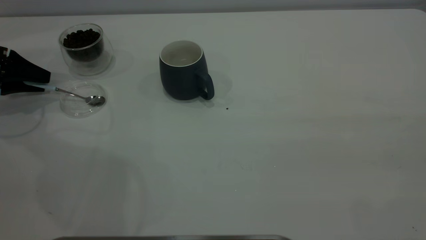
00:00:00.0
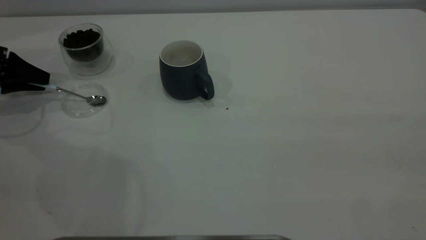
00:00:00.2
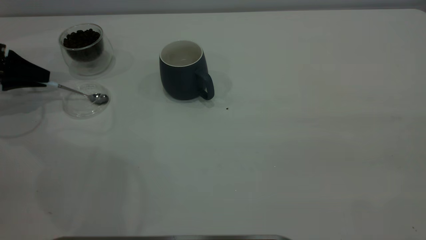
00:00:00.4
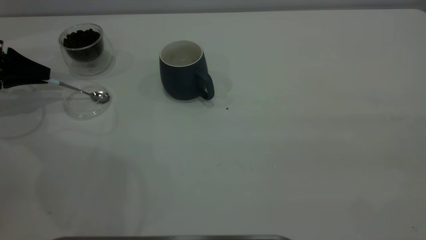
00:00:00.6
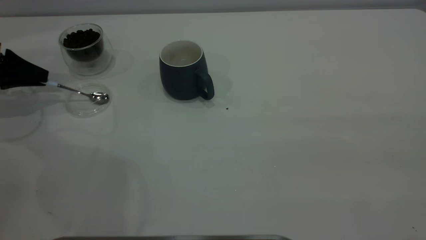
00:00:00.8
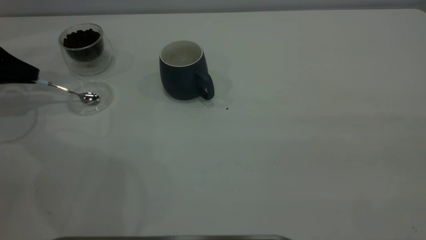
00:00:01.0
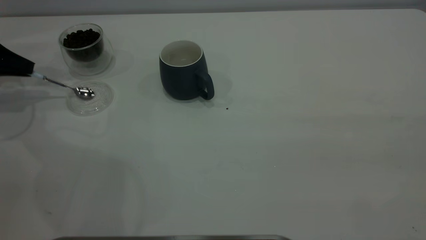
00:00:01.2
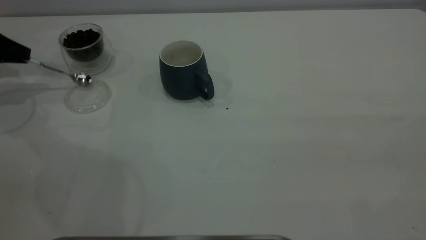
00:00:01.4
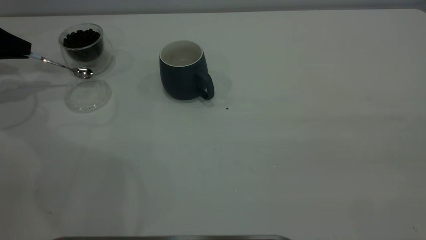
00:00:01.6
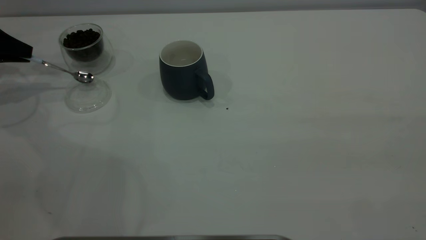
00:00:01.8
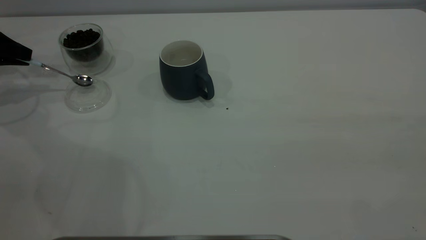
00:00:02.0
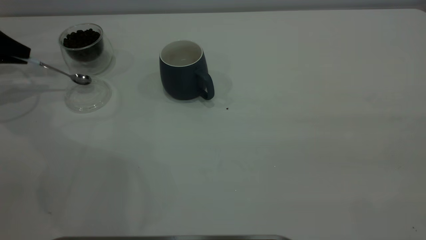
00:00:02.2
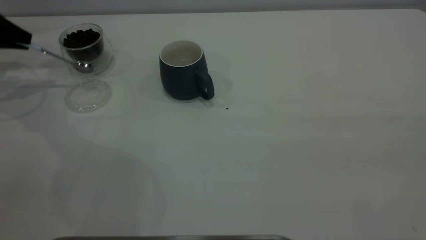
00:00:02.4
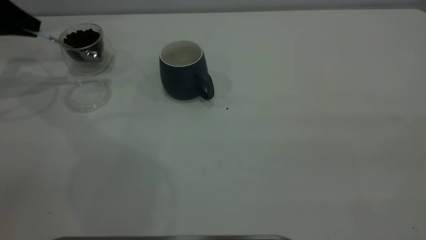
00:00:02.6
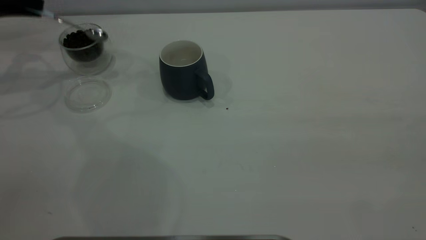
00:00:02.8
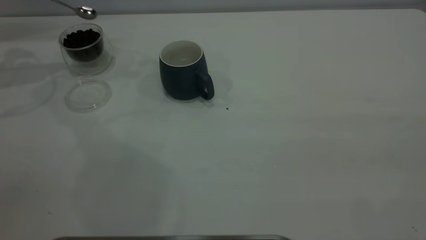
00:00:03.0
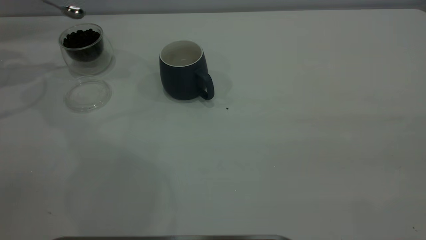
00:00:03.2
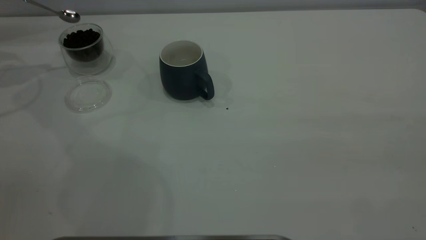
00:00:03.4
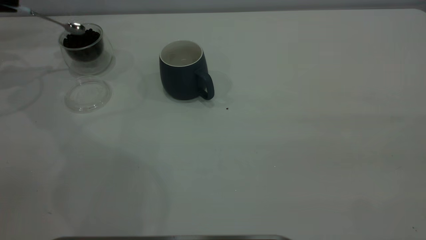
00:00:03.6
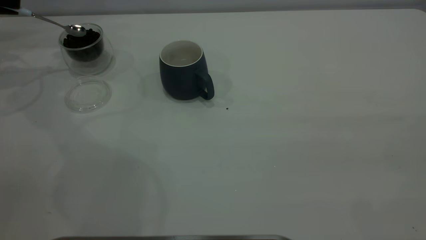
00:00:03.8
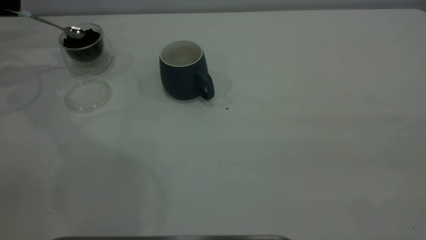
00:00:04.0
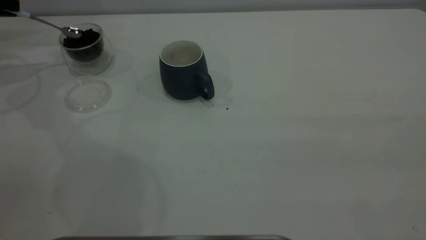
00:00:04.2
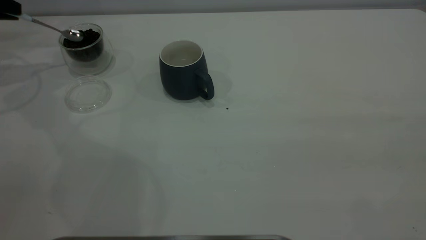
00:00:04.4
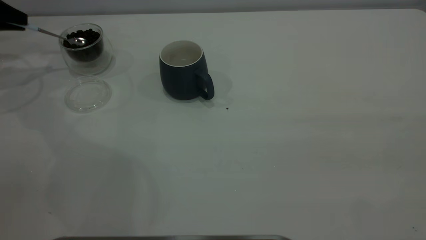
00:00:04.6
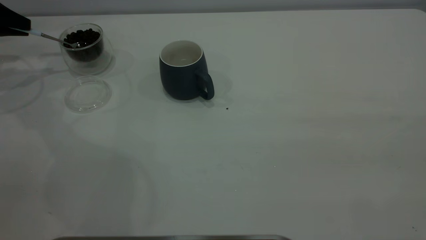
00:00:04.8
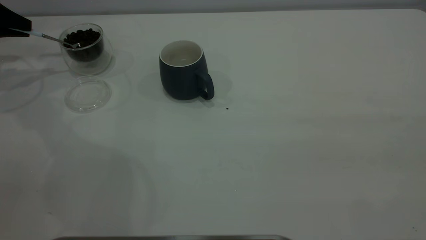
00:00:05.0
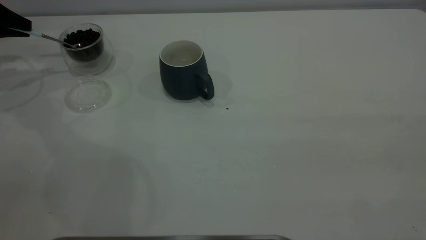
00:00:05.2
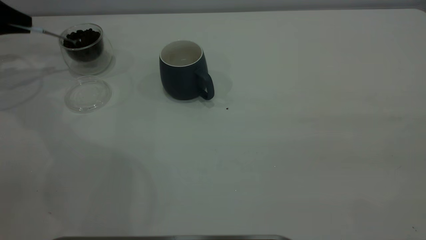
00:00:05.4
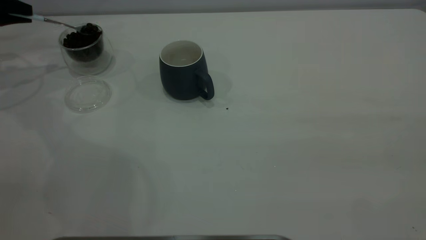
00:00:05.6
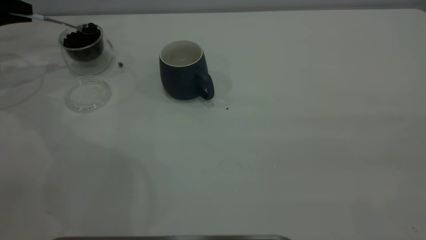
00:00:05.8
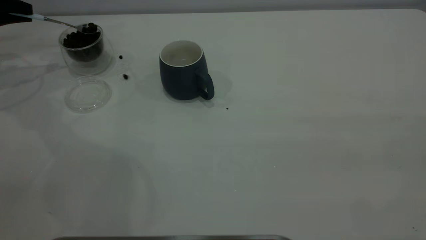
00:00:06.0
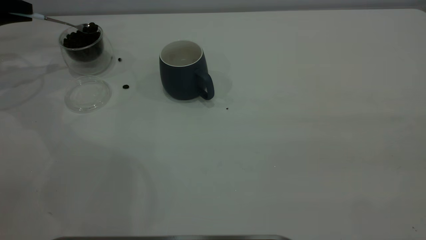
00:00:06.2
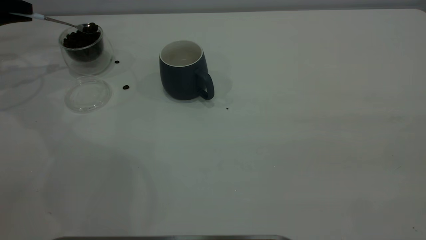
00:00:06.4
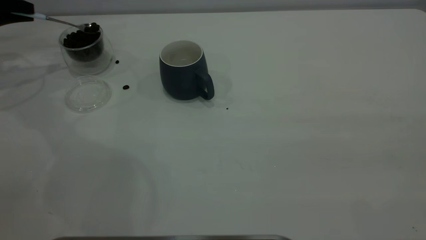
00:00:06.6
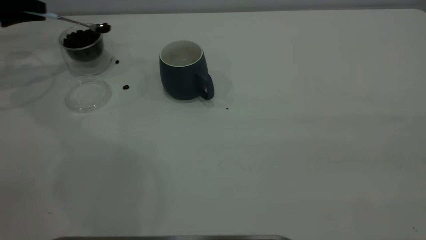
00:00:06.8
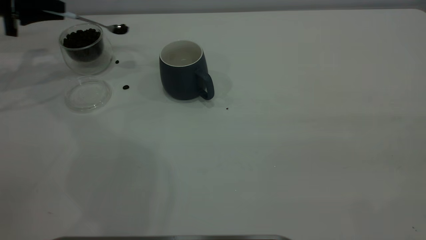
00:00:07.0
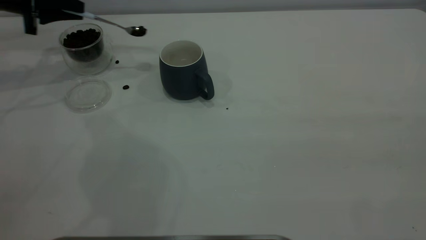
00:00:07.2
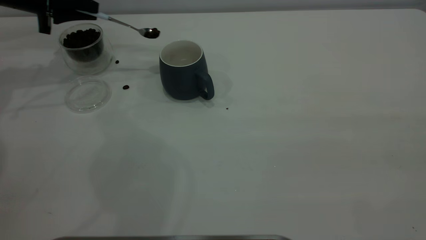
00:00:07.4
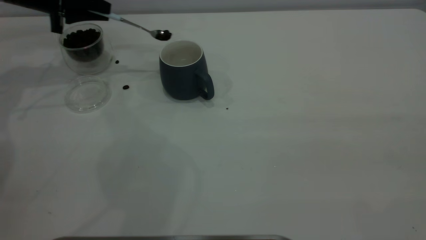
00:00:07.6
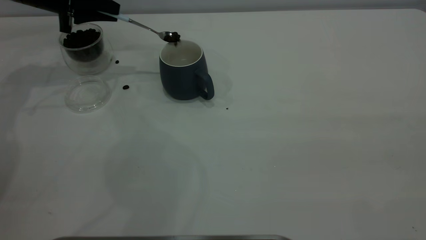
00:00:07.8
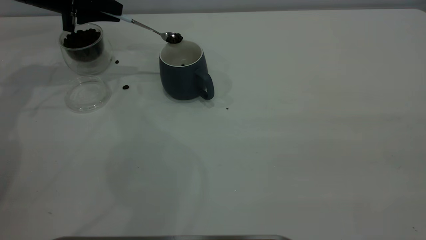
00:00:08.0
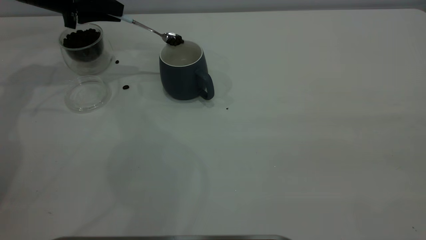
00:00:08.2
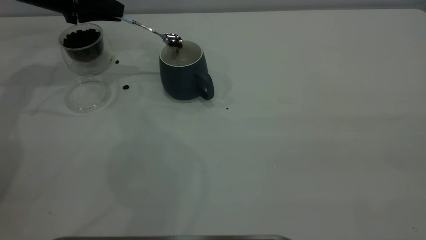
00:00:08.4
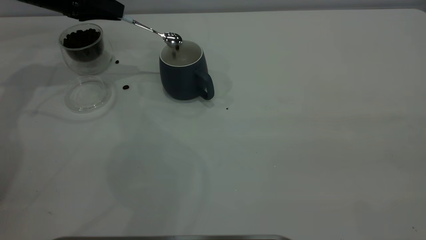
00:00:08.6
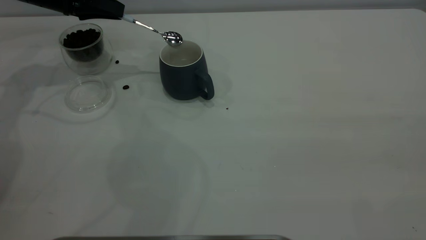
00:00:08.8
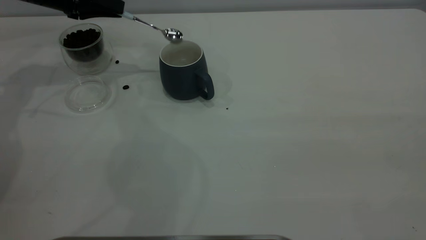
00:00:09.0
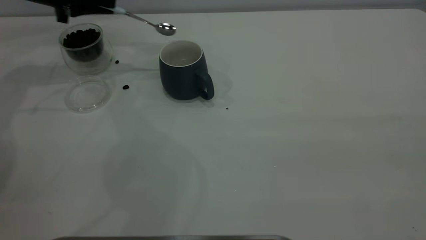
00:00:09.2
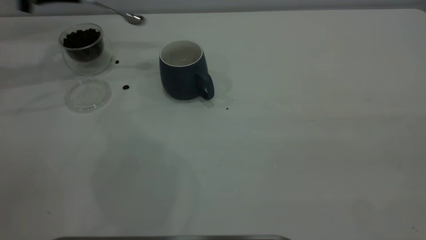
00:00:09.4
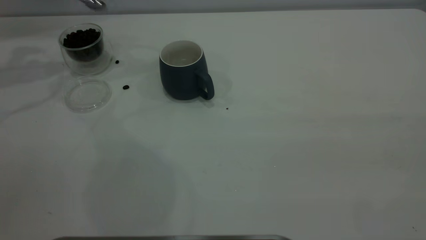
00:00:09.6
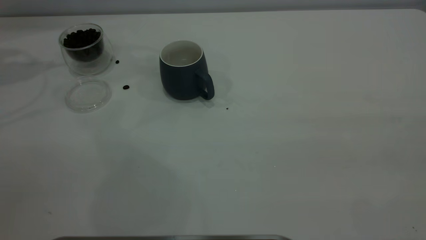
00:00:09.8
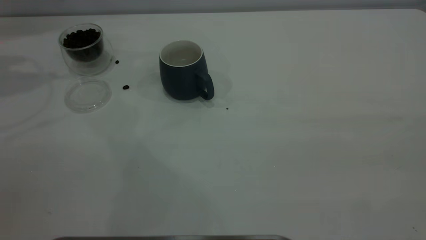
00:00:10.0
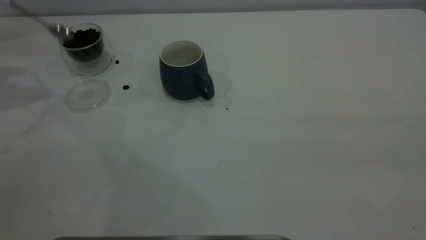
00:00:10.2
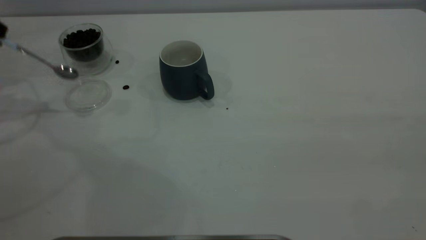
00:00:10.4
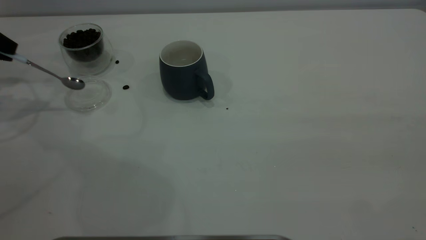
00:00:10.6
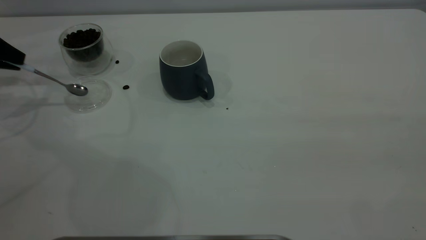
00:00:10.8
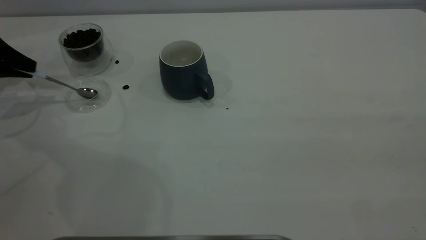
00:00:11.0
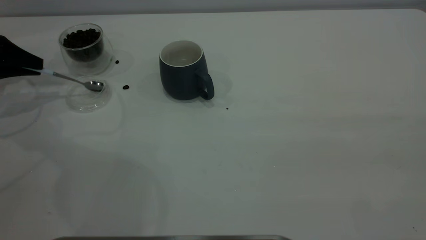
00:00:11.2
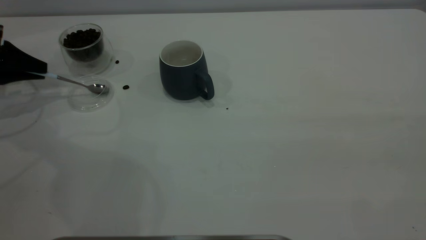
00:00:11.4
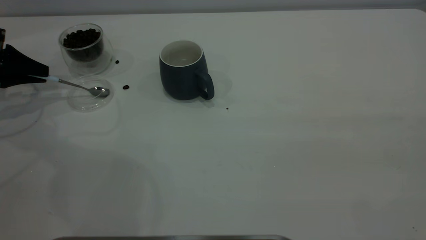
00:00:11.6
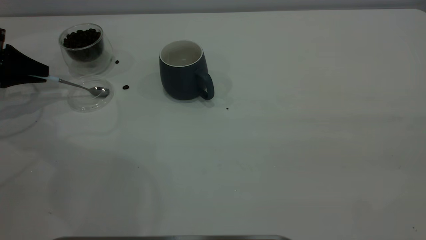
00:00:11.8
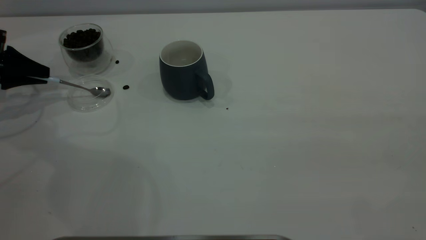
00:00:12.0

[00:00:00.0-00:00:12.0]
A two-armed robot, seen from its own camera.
Task of the whole recording: the right gripper place the grey cup in the center of the table, the left gripper take the blue spoon from the cup lid and scoop out the coffee beans from the coffee cup and put them into the grey cup, the left gripper put the spoon back into the cup lid.
Step, 00:00:00.0 to 00:00:02.6: Pick up the spoon.
Step, 00:00:02.8 to 00:00:09.2: Scoop a spoonful of beans into the cup.
00:00:00.0 to 00:00:01.6: The left gripper changes place by approximately 5 cm, and closes.
00:00:01.6 to 00:00:03.0: The left gripper travels upward by about 10 cm.
00:00:03.0 to 00:00:04.4: The left gripper goes some 5 cm downward.
00:00:06.0 to 00:00:07.6: The left gripper is displaced to the right by about 15 cm.
00:00:09.0 to 00:00:10.4: The left gripper goes about 15 cm to the left and backward, and reaches some 15 cm upward, then returns.
00:00:10.4 to 00:00:12.0: The left gripper goes some 10 cm downward.

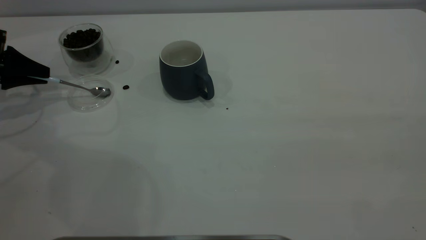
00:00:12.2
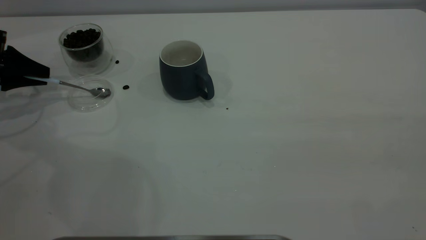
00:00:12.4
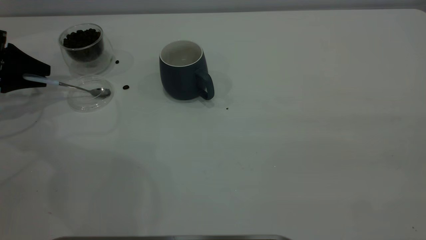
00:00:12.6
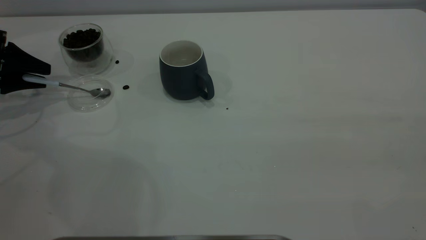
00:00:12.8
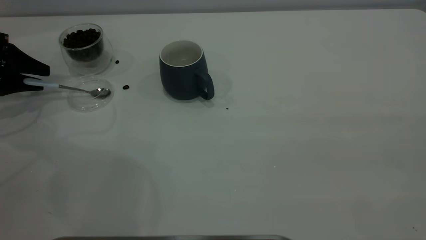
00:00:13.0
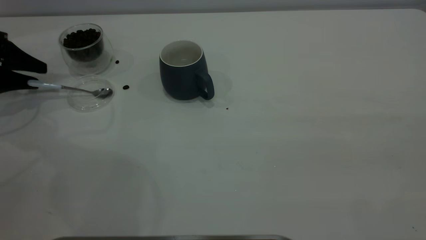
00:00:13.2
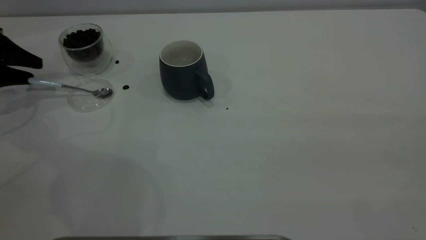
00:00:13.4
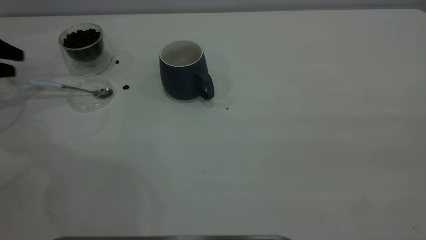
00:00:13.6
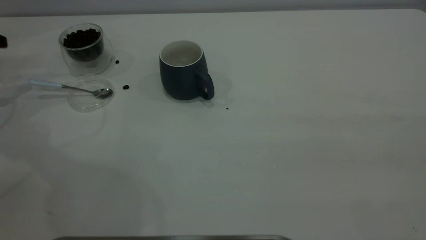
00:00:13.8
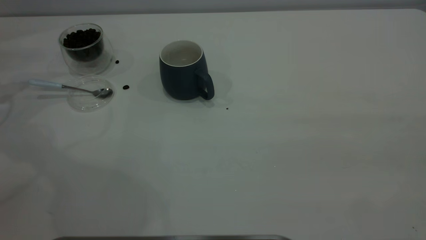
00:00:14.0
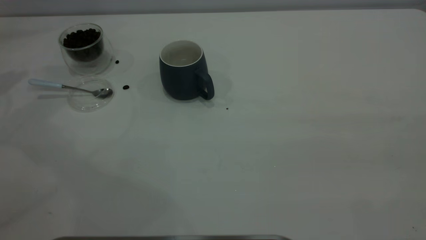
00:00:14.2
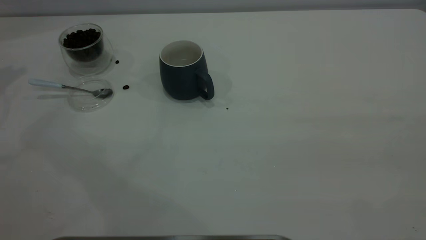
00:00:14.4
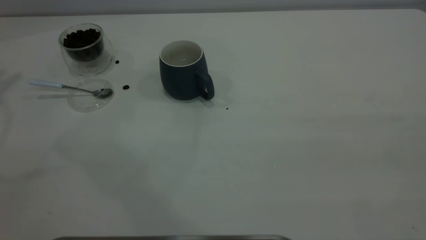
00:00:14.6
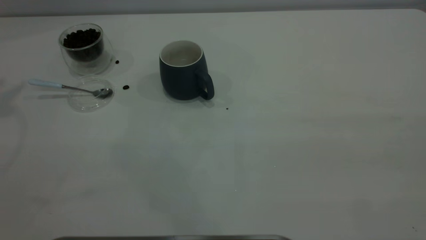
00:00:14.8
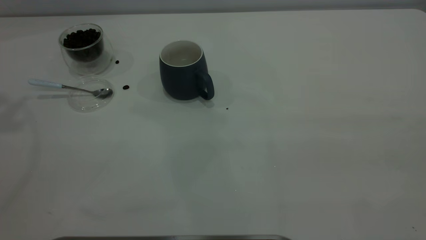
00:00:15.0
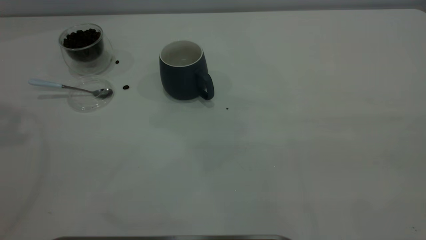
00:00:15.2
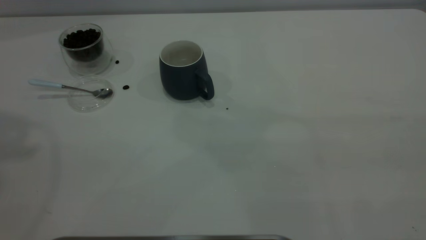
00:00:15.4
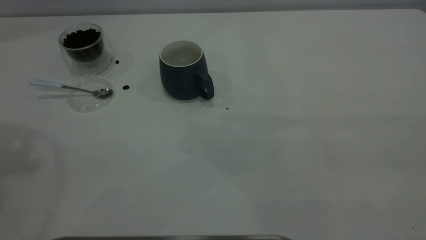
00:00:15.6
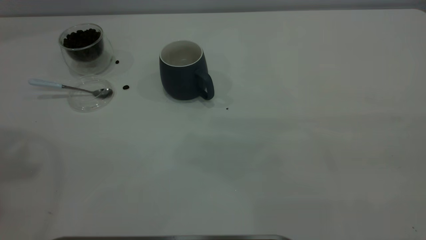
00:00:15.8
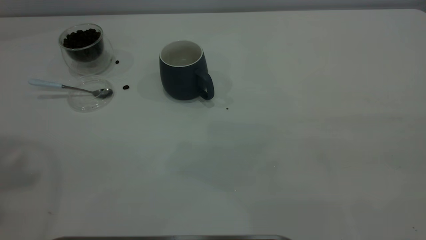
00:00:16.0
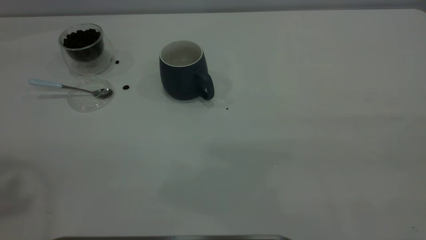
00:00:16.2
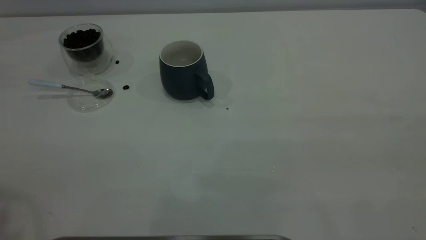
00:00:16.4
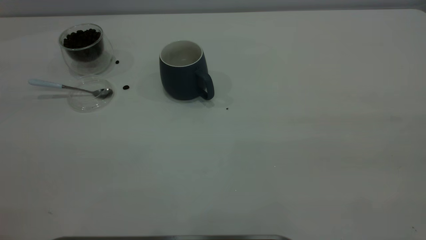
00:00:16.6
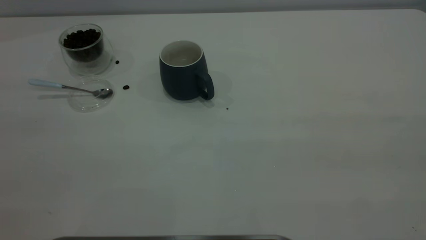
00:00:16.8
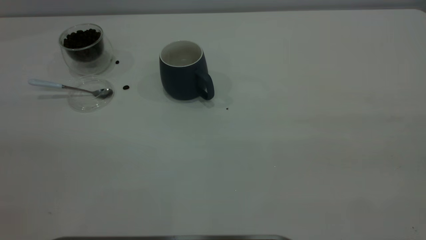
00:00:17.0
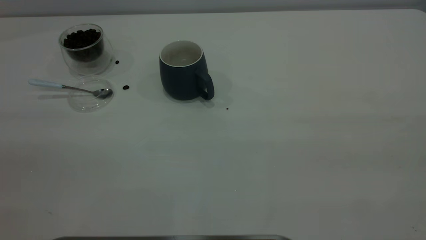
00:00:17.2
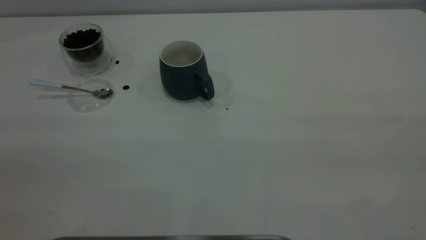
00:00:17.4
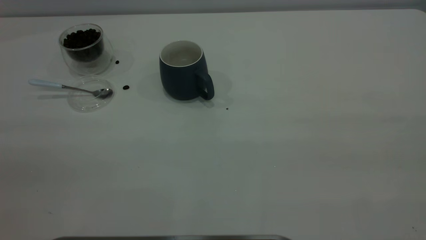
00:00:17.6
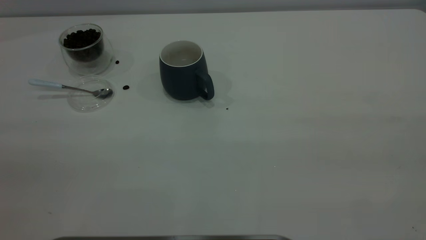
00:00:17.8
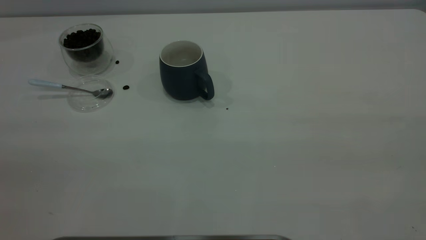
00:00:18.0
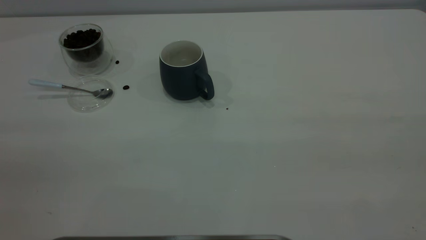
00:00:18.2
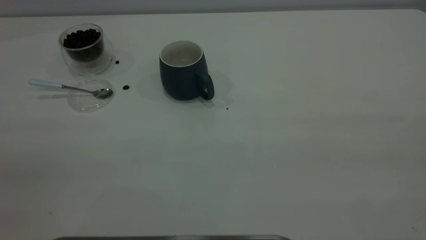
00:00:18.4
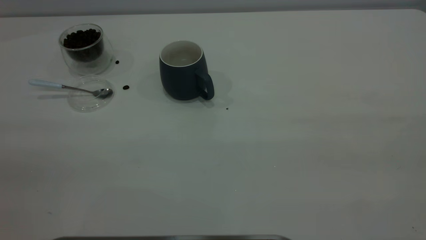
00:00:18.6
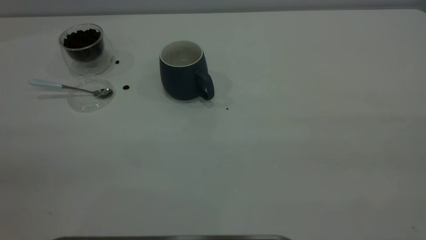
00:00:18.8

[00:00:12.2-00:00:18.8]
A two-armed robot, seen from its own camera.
Task of the whole recording: the right gripper place the grey cup in the center of the table, the left gripper take the blue spoon from the cup lid and scoop out the coffee beans from the coffee cup and put them into the grey cup, the left gripper put the spoon back into the cup lid.
00:00:12.2 to 00:00:13.8: The left gripper moves upward and to the left, some 10 cm, and opens.
